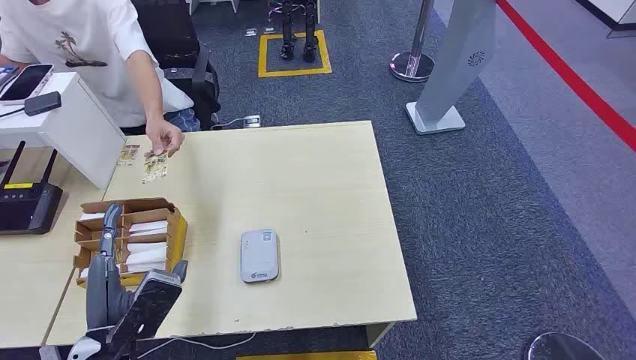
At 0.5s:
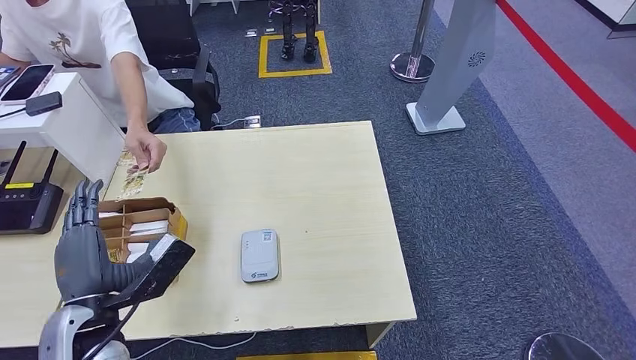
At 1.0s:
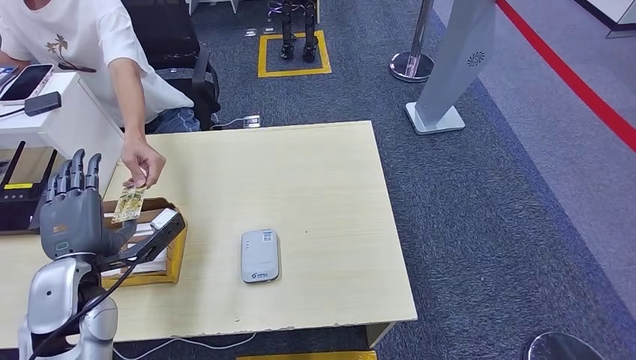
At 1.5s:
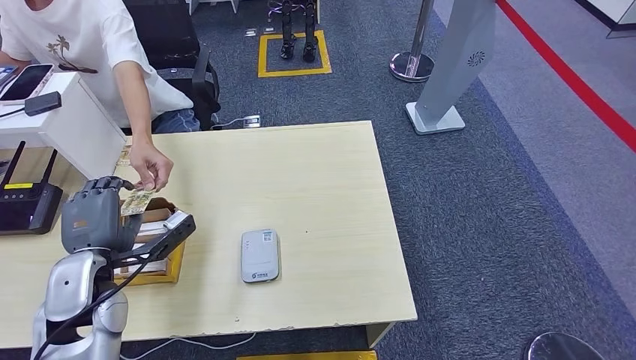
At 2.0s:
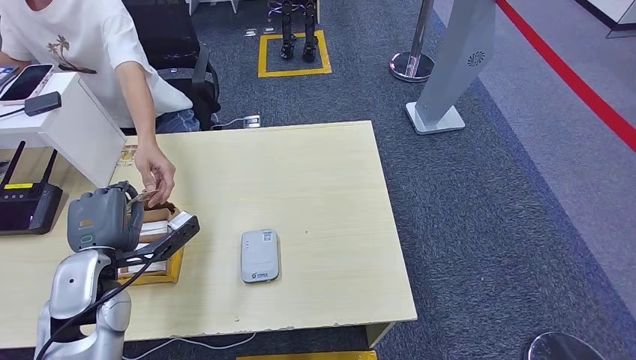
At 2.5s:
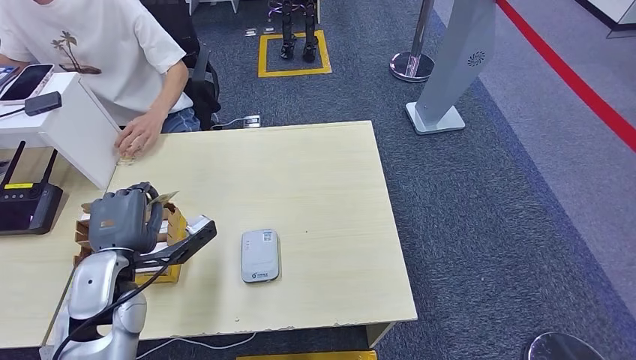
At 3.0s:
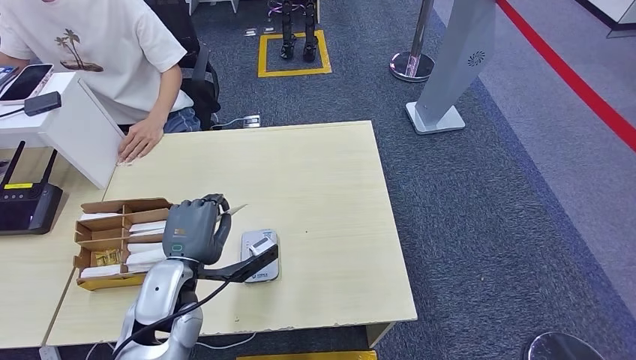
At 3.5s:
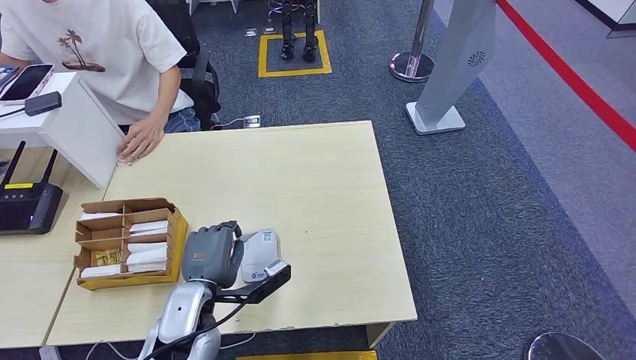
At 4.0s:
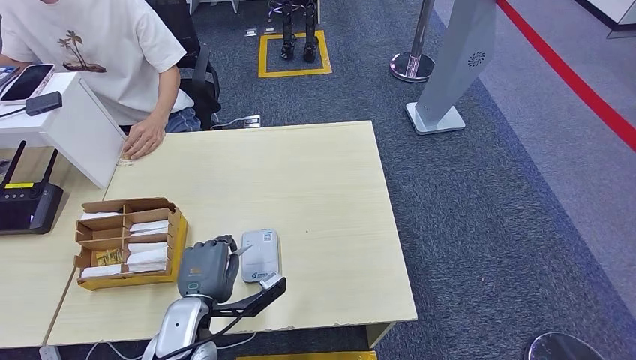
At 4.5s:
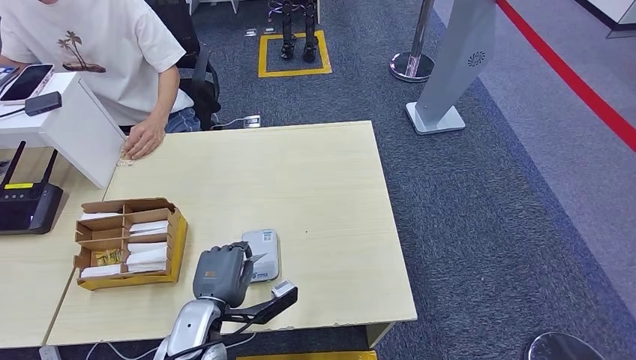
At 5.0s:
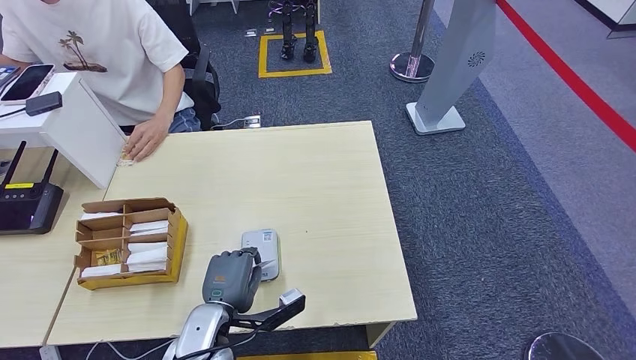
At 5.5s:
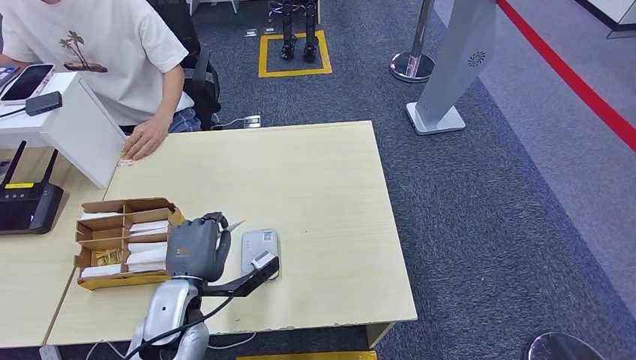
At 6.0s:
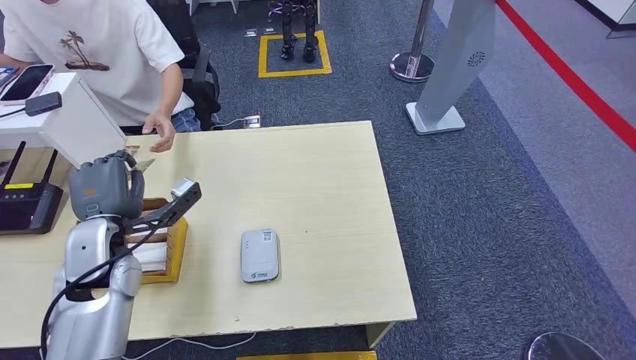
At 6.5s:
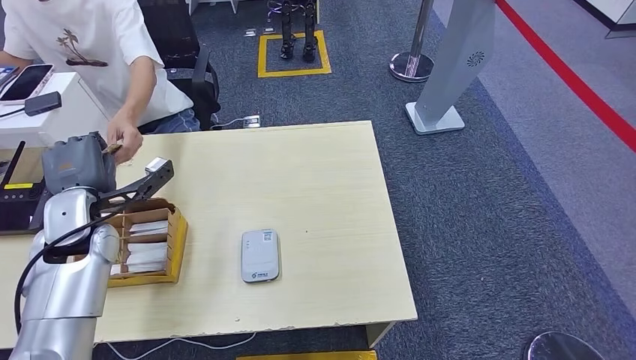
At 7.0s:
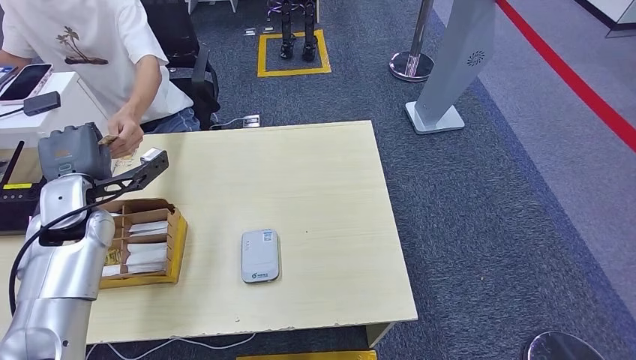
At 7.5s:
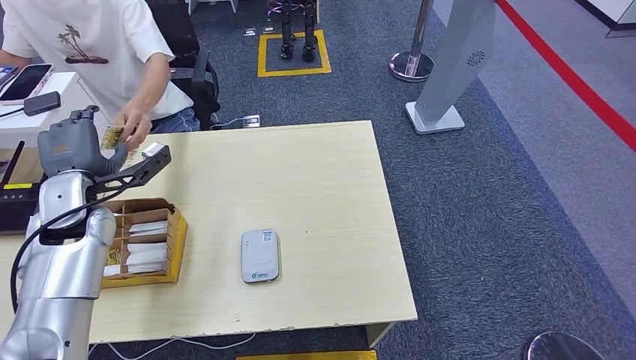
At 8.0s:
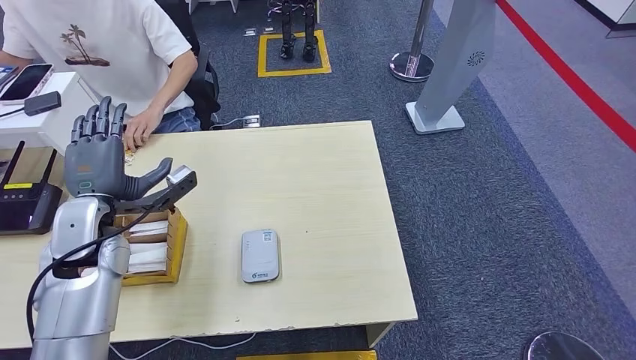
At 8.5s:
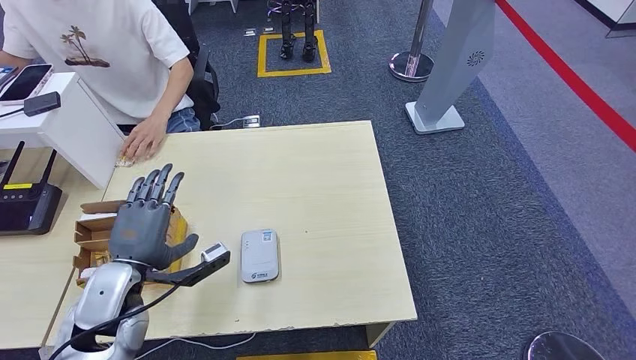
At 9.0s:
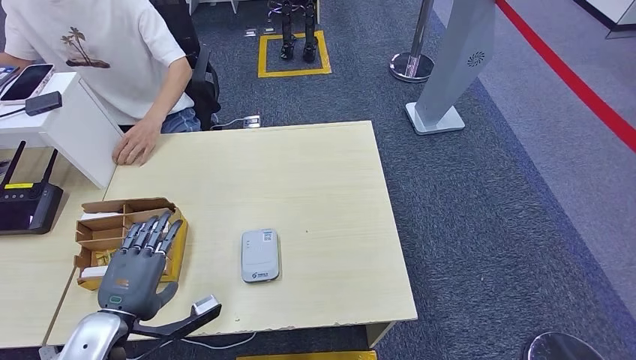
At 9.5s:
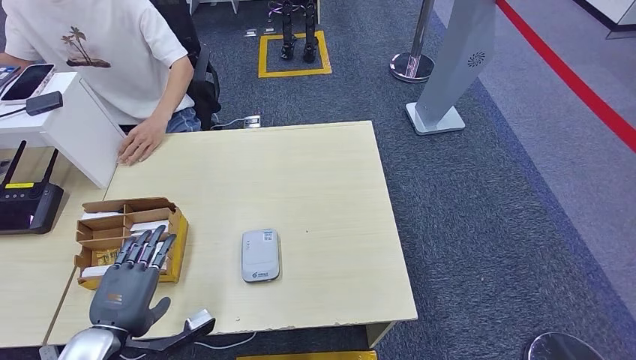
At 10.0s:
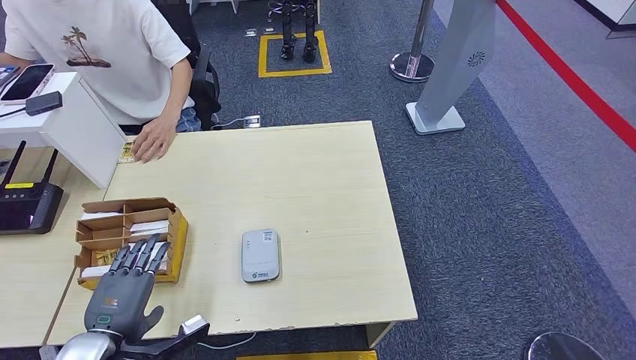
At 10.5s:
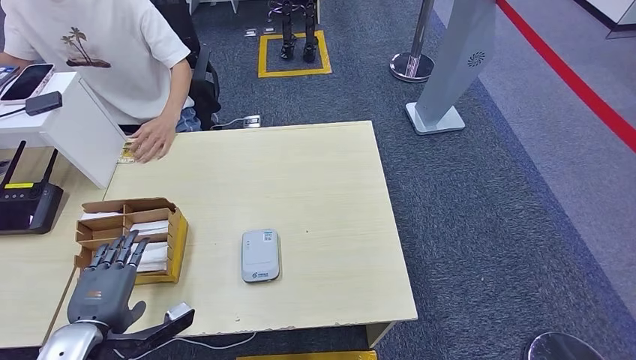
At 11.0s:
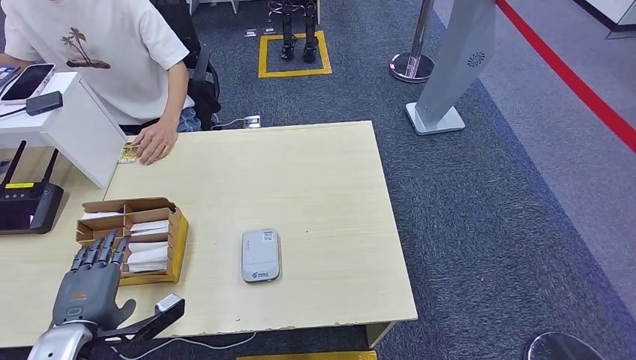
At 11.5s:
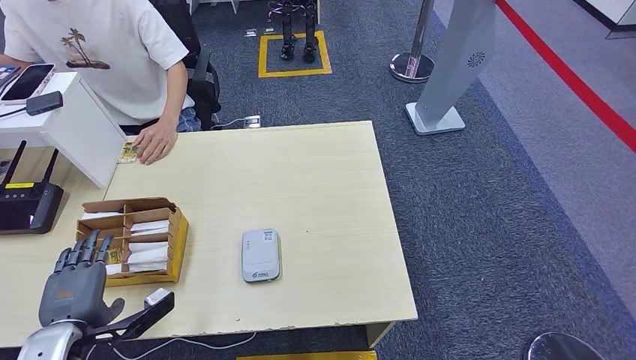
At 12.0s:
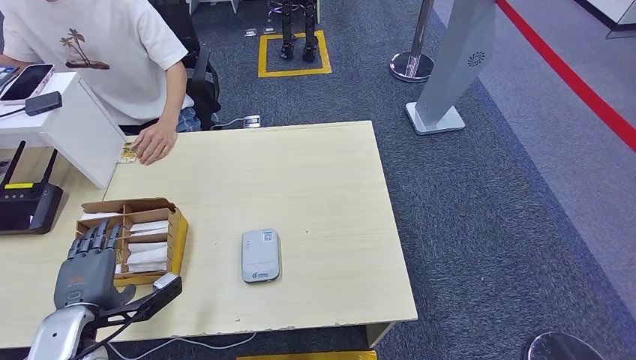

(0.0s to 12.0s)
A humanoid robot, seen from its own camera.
Step, 0.0s - 2.0s: Take the ID card from the person's hand.
Step, 2.5s - 4.5s: Place the ID card on the card reader.
Step, 5.5s - 7.0s: Hand the ID card to the person.
2.0s - 4.0s: The left hand heads to the right and downward, covering roughly 15 cm.
4.0s - 6.0s: The left hand shifts about 15 cm to the left, upward and forward.
8.0s - 10.0s: The left hand travels backward and downward by some 20 cm.
10.0s - 12.0s: The left hand changes place by about 5 cm.

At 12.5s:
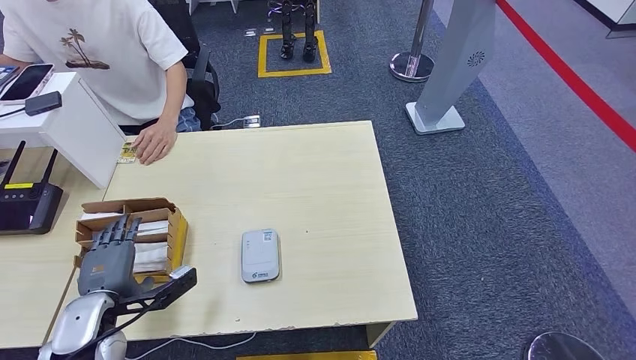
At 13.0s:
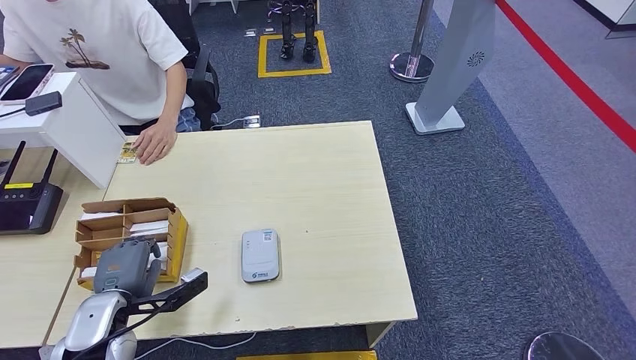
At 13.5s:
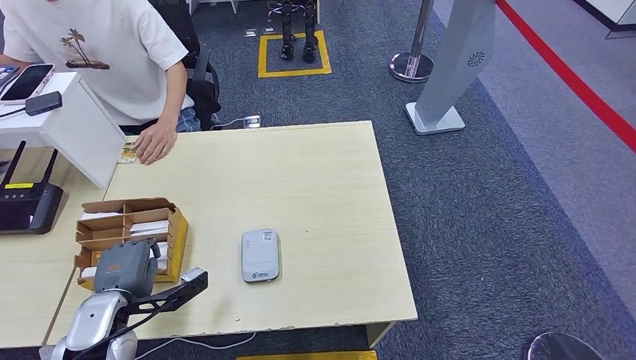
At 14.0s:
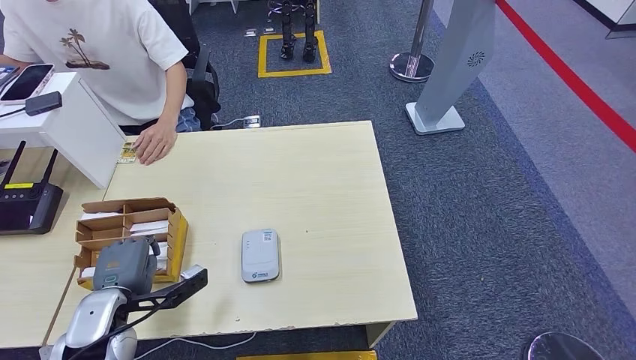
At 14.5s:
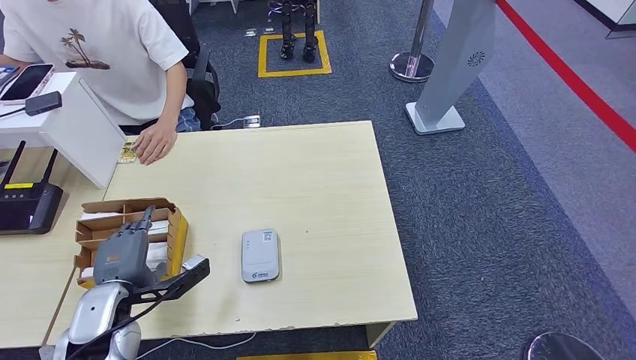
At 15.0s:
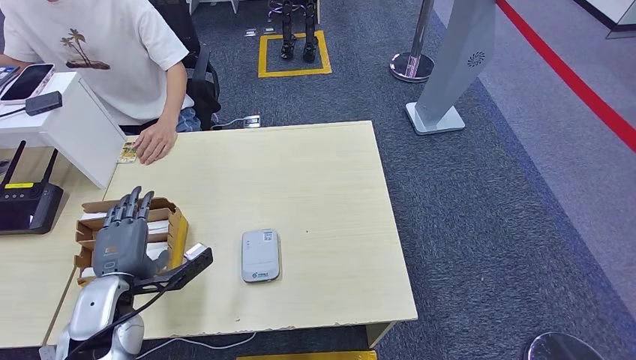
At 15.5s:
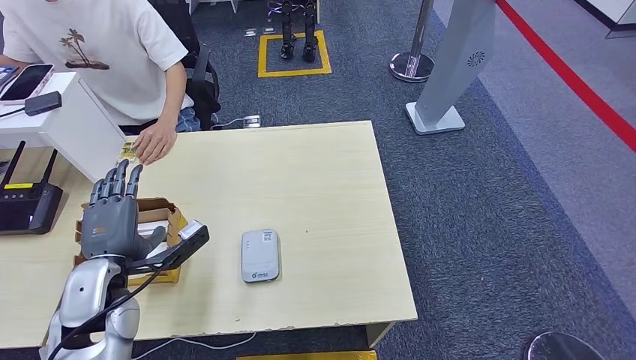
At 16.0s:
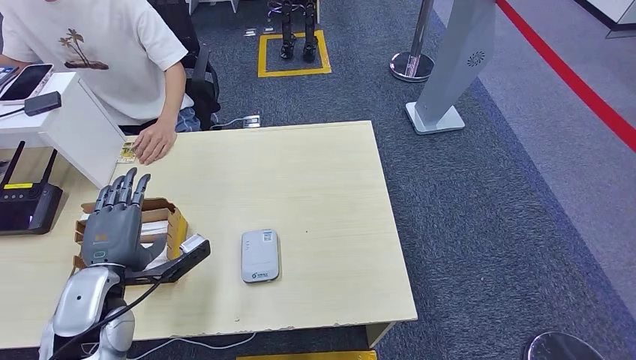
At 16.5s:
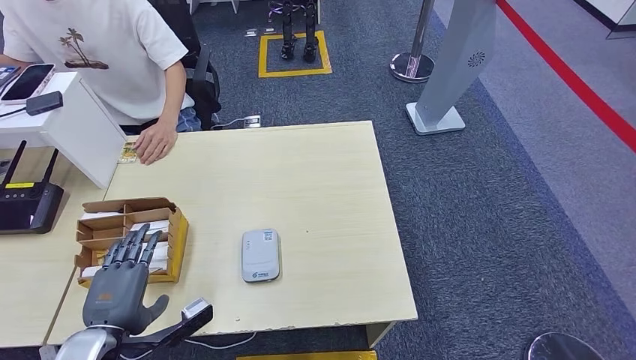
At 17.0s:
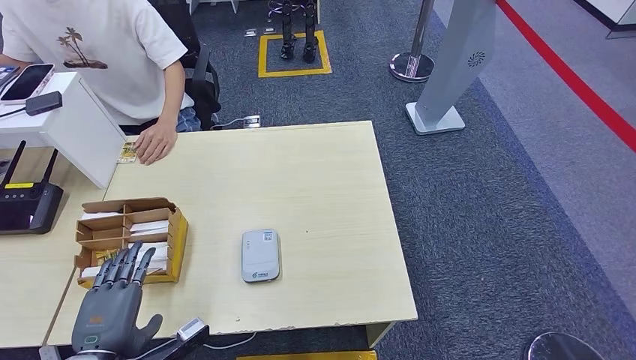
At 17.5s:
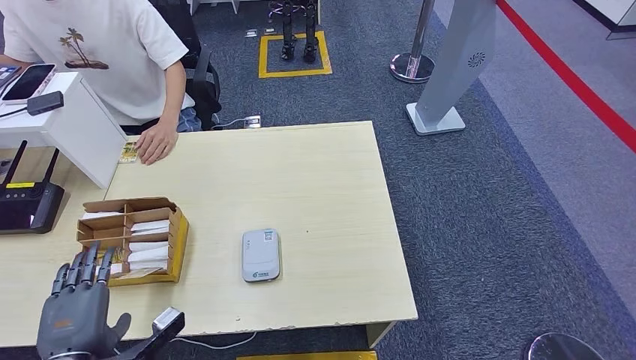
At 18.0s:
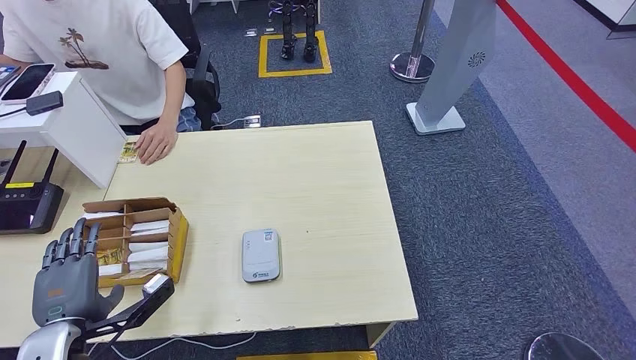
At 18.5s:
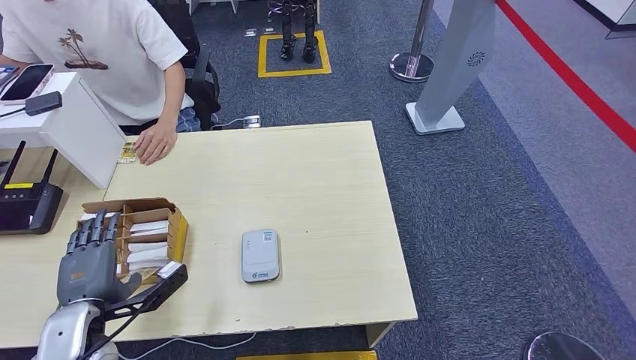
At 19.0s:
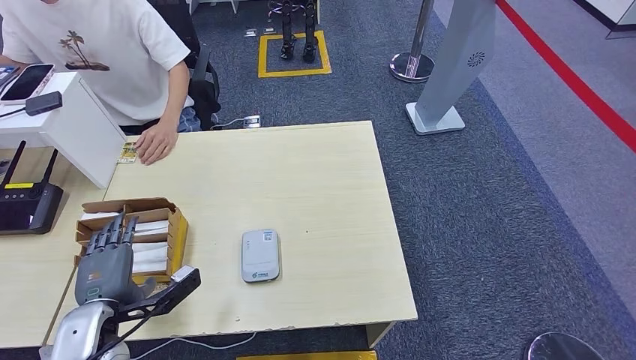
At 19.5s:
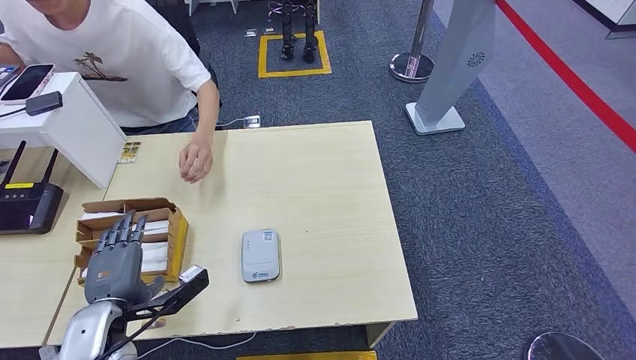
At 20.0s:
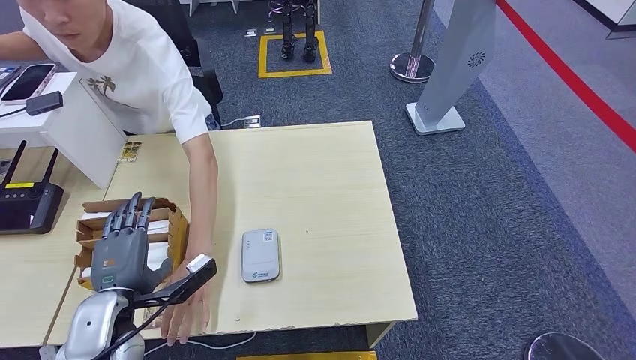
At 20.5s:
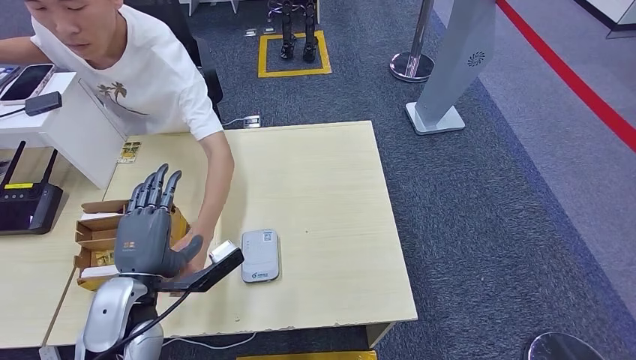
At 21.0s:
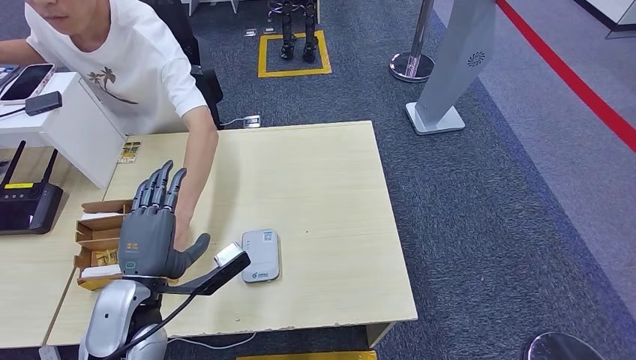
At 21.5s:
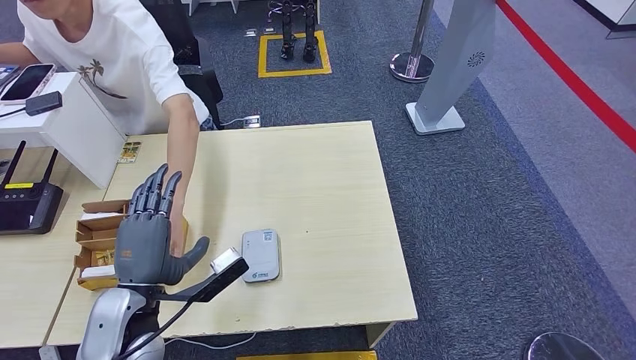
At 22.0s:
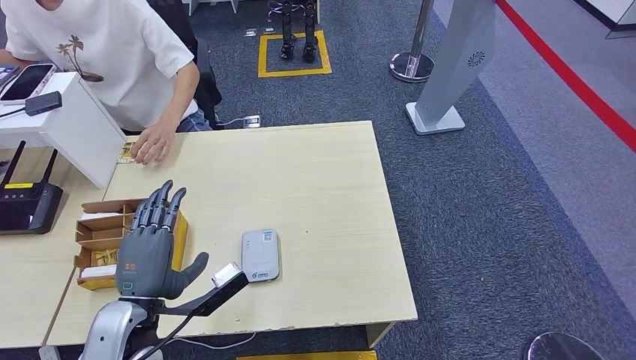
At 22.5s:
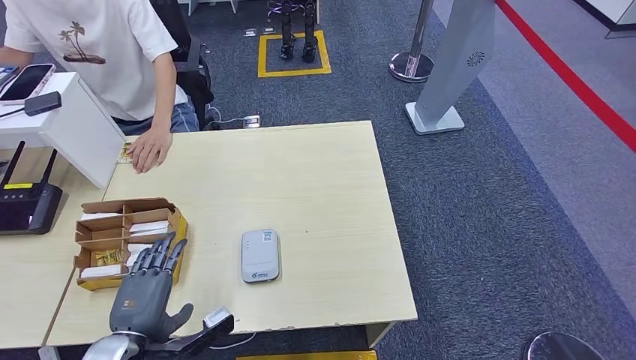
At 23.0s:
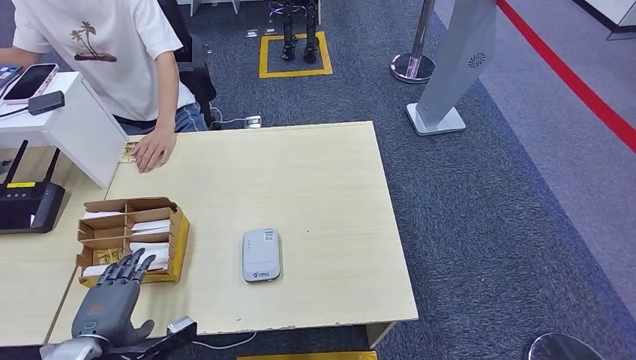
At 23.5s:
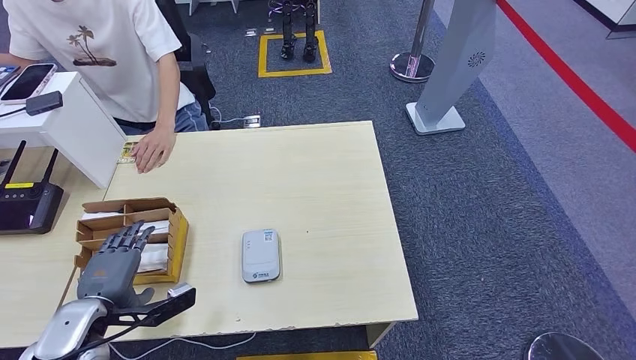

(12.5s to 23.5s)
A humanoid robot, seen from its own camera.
12.5s - 14.5s: There are only small adjustments of the hands.
14.5s - 16.0s: The left hand moves upward, about 5 cm.
16.0s - 18.0s: The left hand heads backward, covering some 5 cm.
18.0s - 20.0s: The left hand is displaced to the right by some 5 cm.
20.0s - 21.5s: The left hand moves to the right, approximately 5 cm.
21.5s - 23.5s: The left hand shifts some 10 cm to the left and downward.
